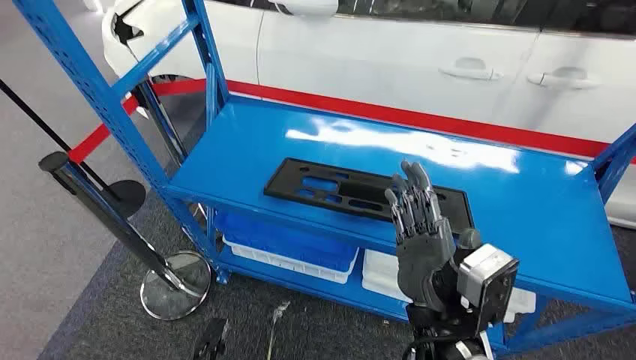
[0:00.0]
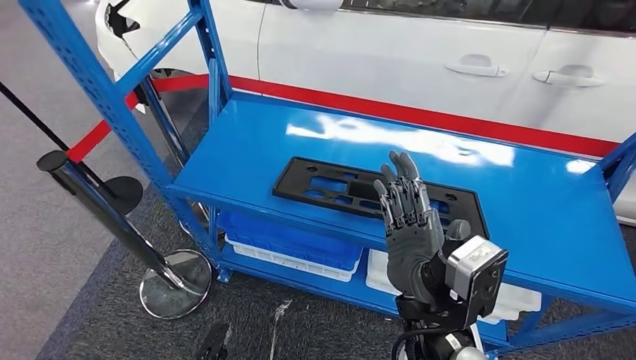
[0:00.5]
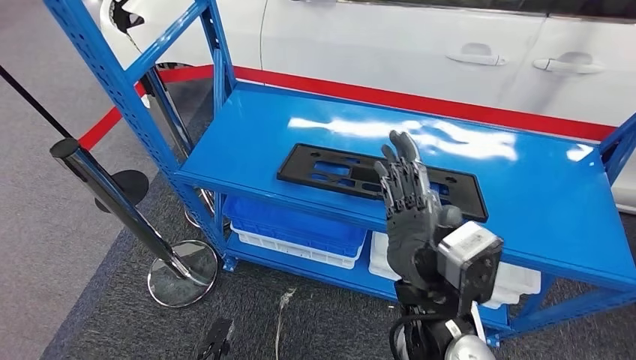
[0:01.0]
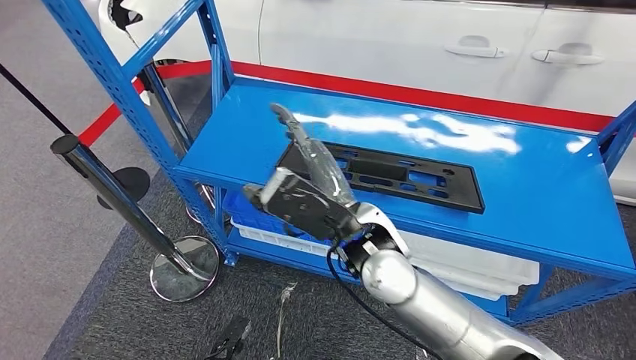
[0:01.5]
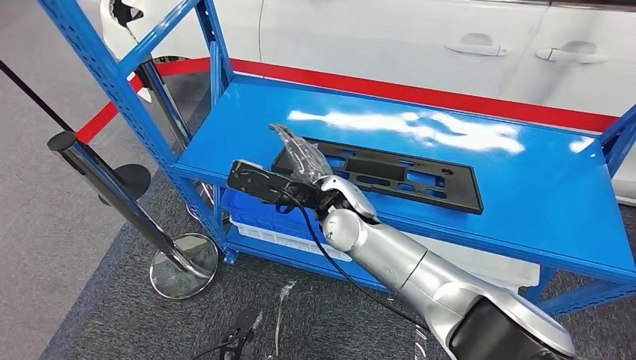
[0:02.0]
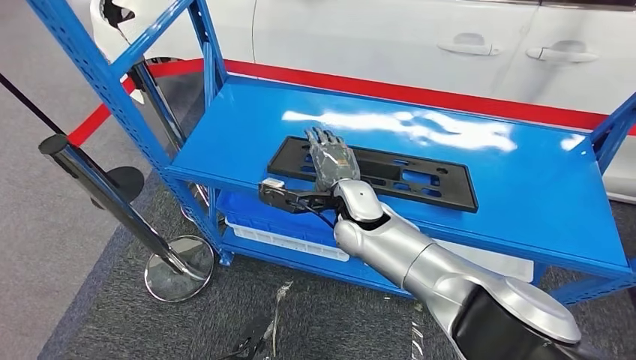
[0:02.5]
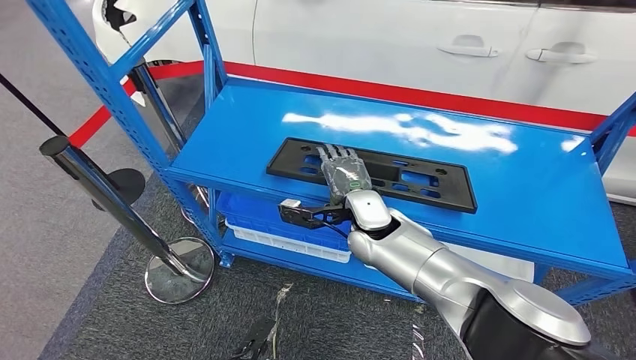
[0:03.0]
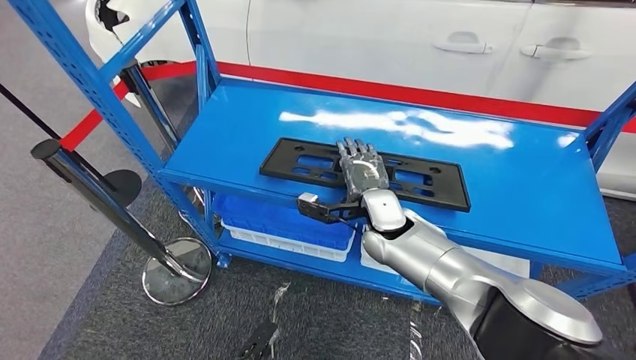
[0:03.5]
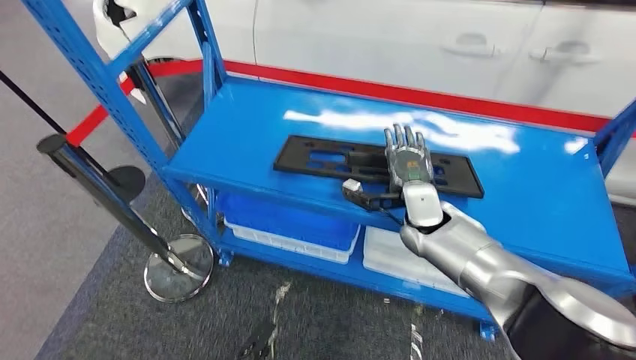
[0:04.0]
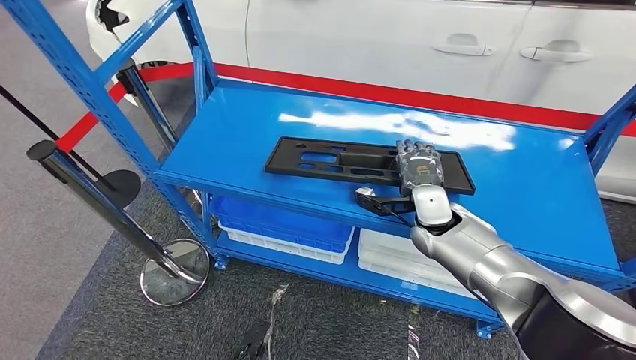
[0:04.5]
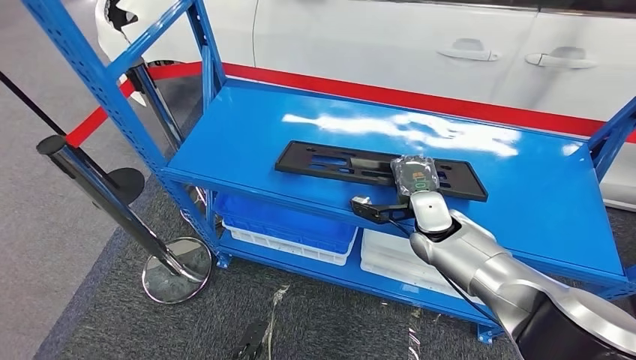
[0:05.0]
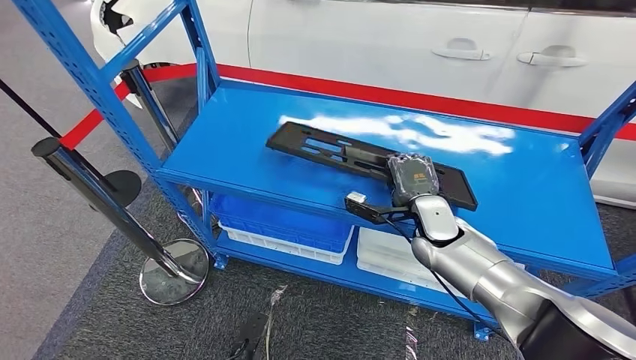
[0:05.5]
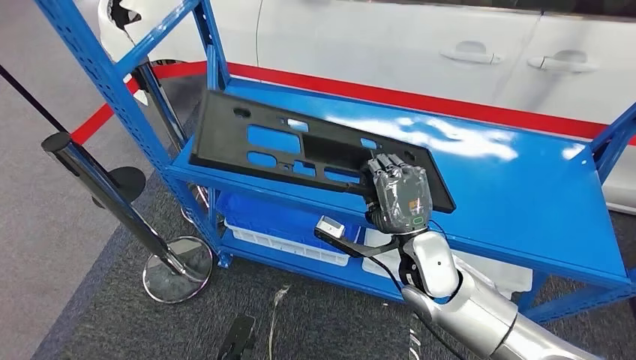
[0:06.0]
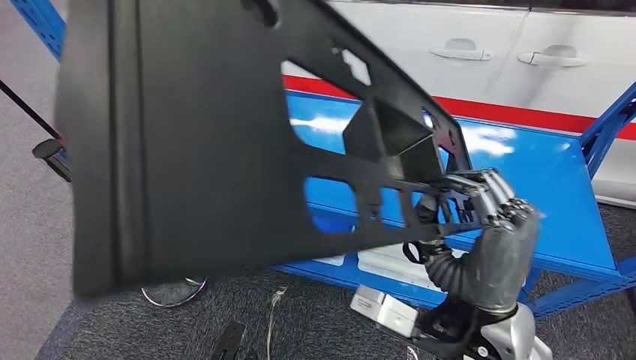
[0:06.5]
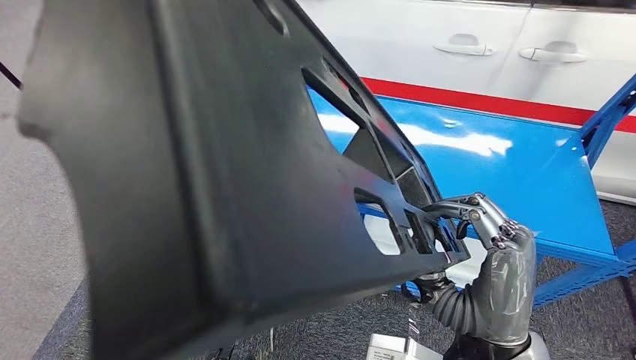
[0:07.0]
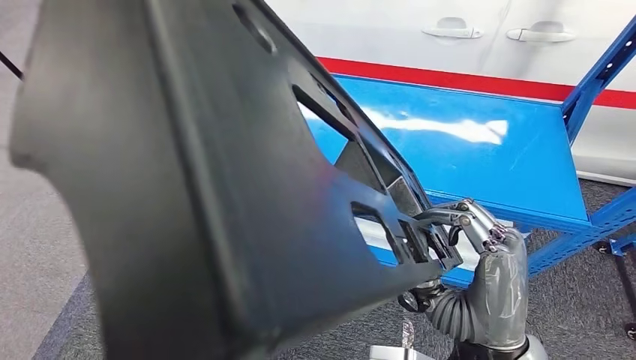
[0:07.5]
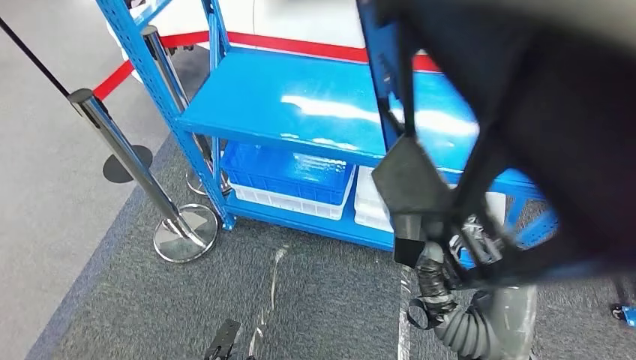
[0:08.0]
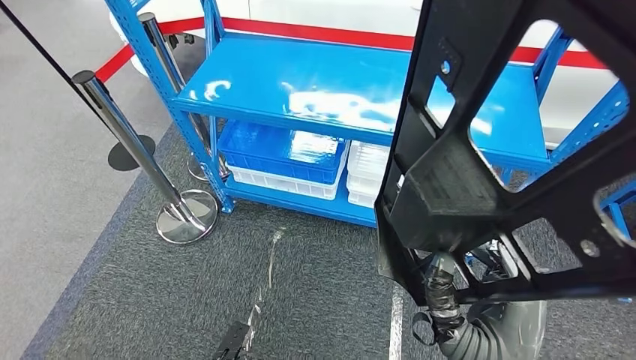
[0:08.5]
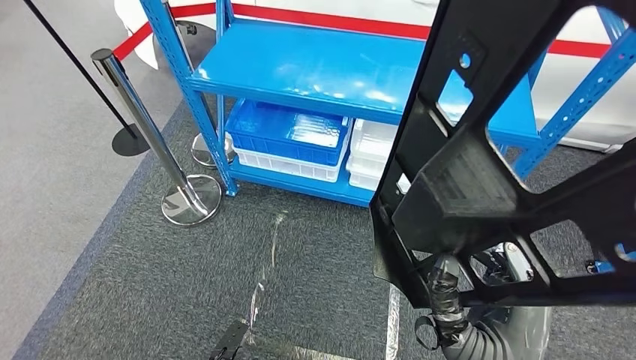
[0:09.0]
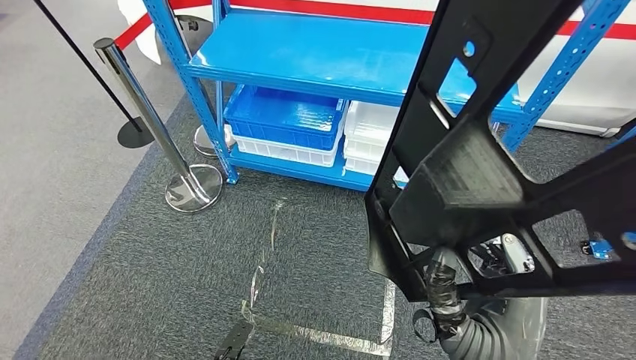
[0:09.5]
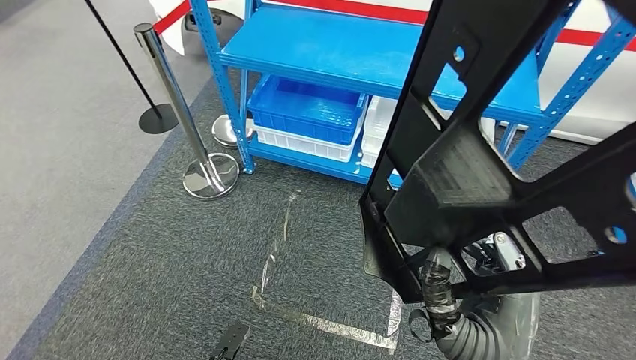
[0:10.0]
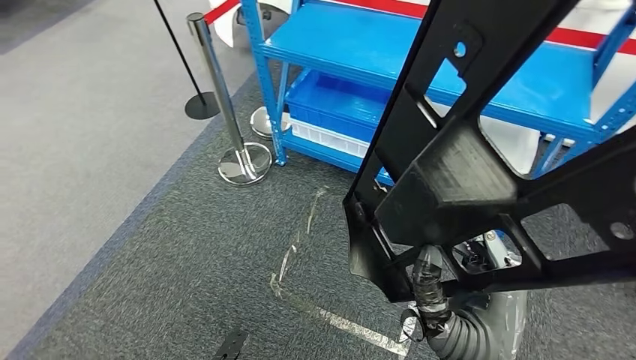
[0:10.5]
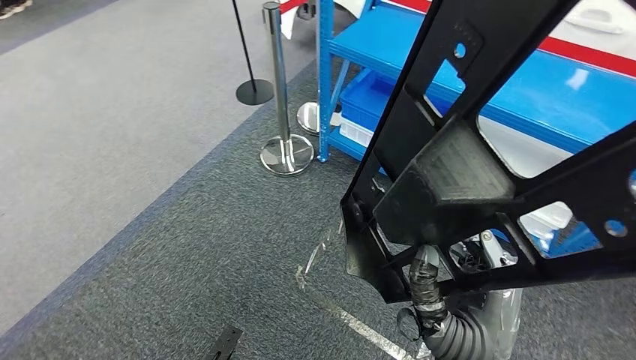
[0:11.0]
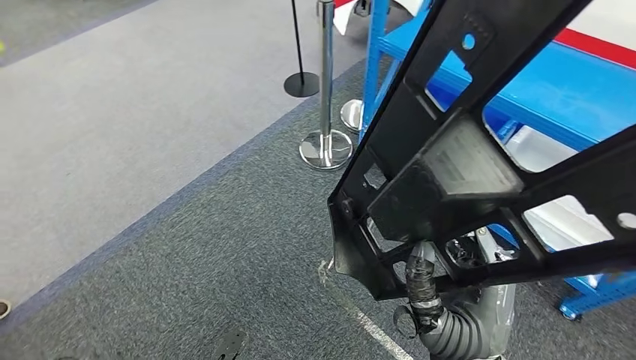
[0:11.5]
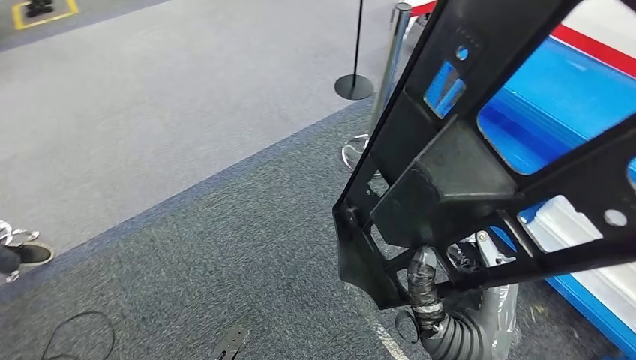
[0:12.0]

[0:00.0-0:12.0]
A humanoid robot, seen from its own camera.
Step, 0:00.0 to 0:06.0: Pick up the large material from the shelf.

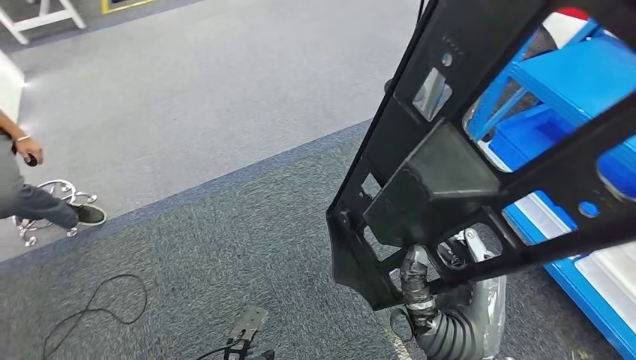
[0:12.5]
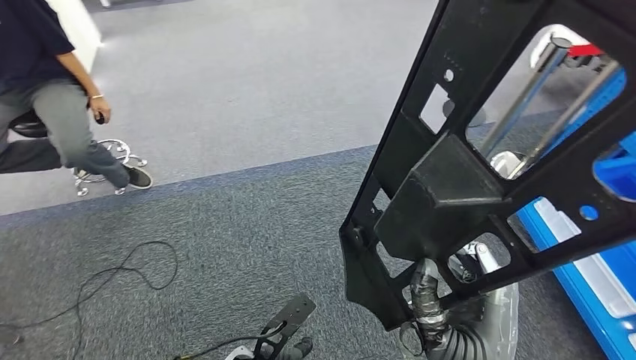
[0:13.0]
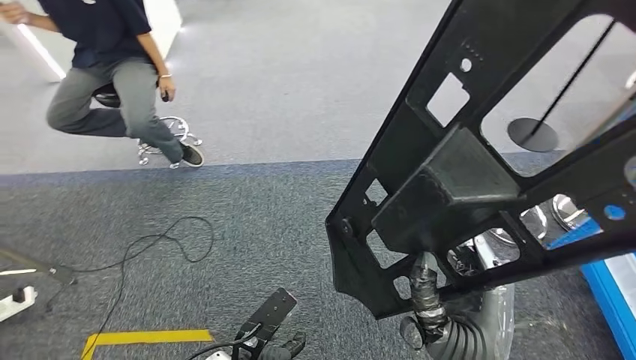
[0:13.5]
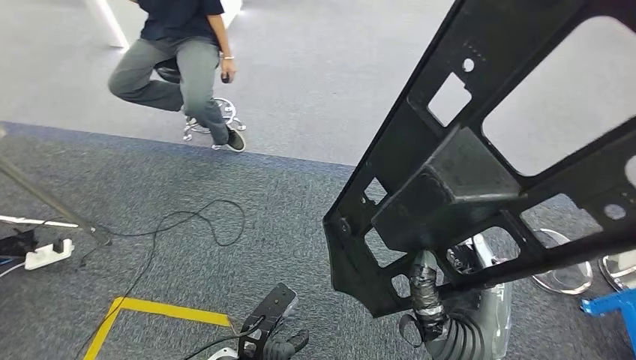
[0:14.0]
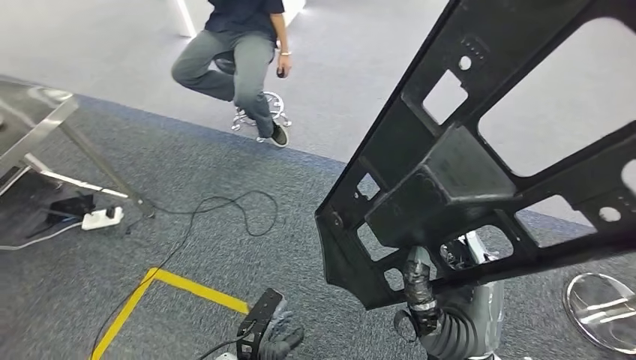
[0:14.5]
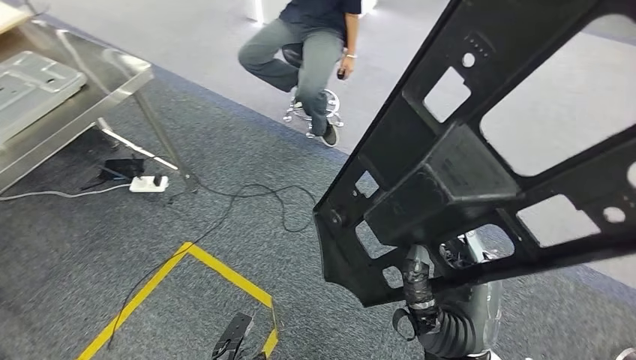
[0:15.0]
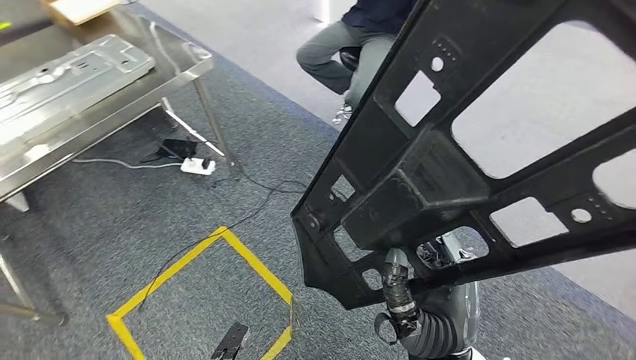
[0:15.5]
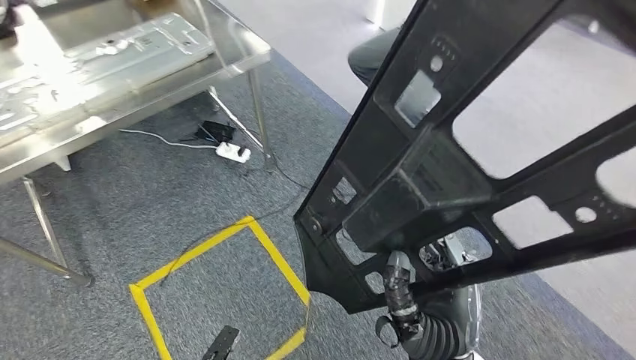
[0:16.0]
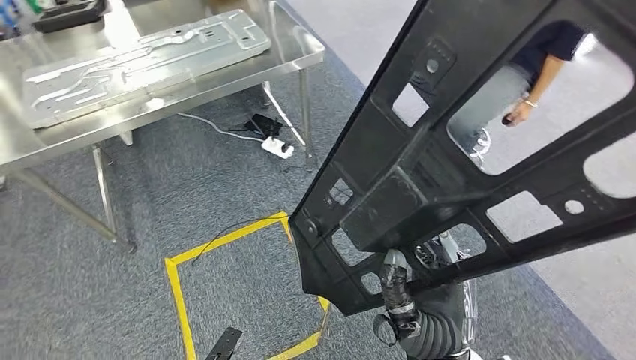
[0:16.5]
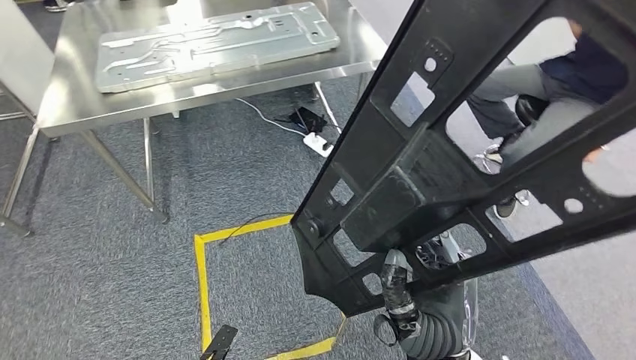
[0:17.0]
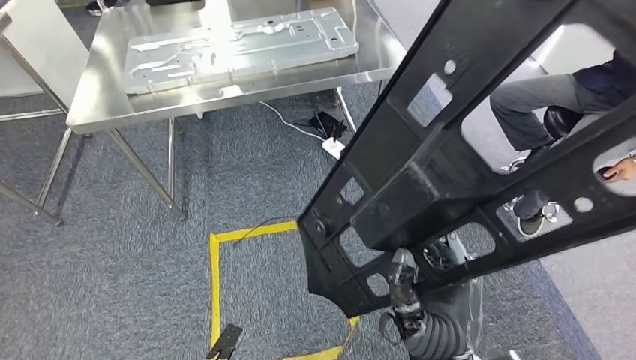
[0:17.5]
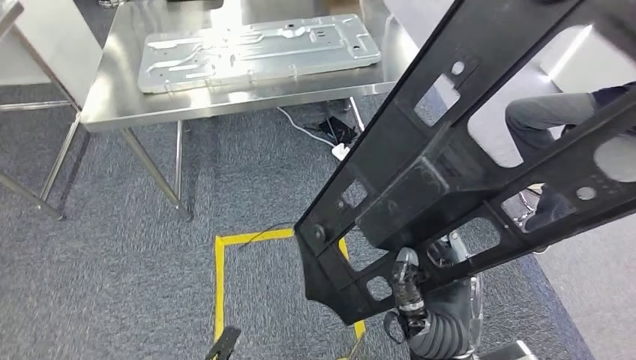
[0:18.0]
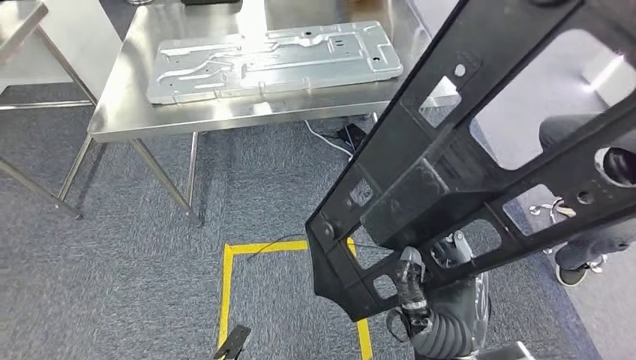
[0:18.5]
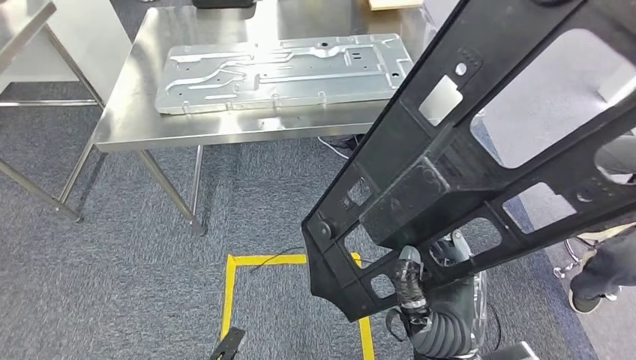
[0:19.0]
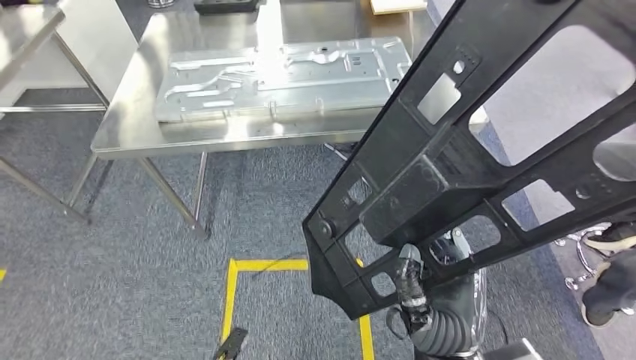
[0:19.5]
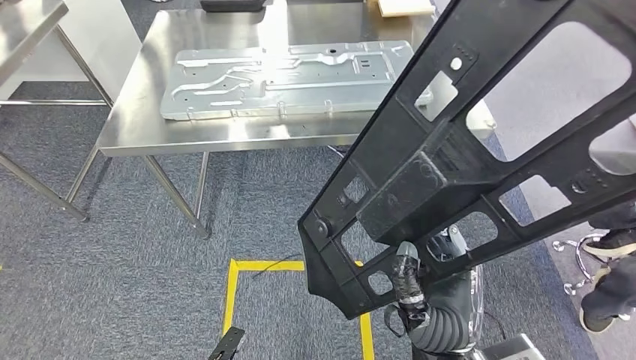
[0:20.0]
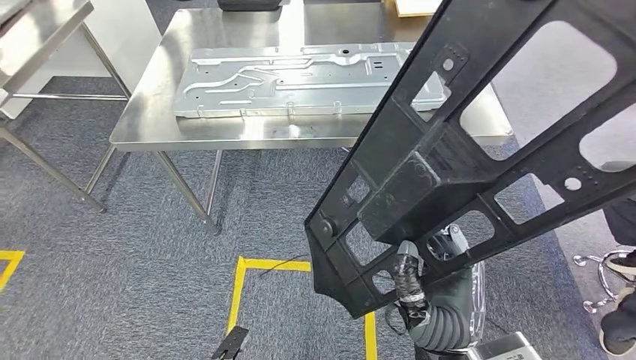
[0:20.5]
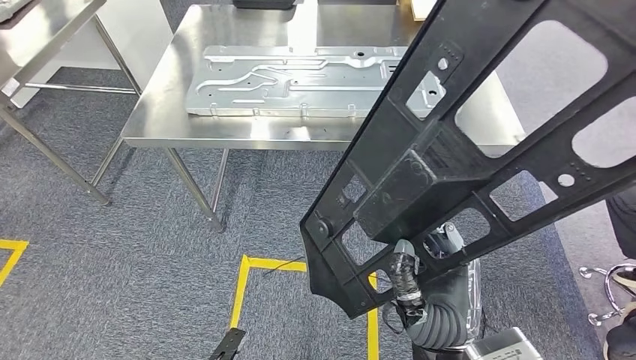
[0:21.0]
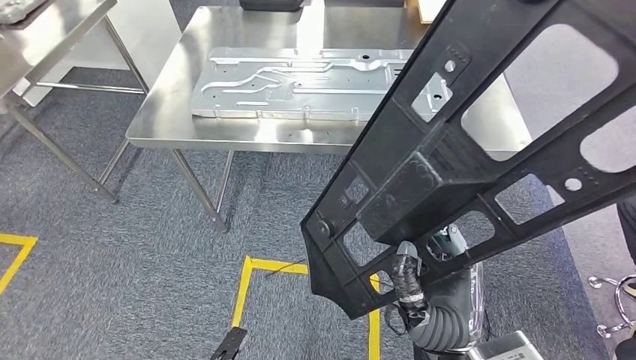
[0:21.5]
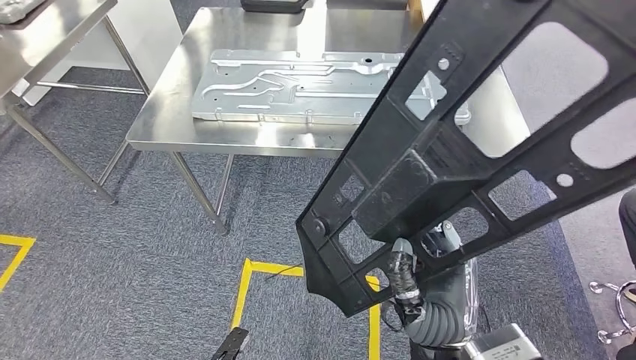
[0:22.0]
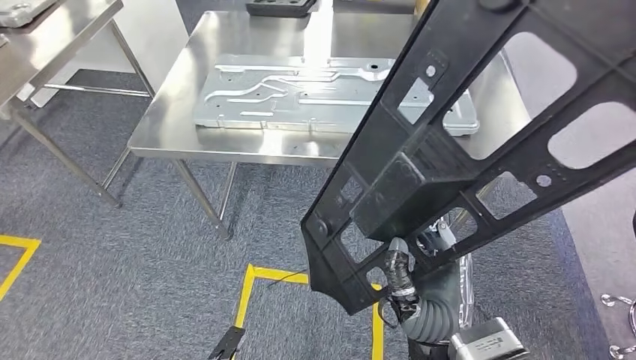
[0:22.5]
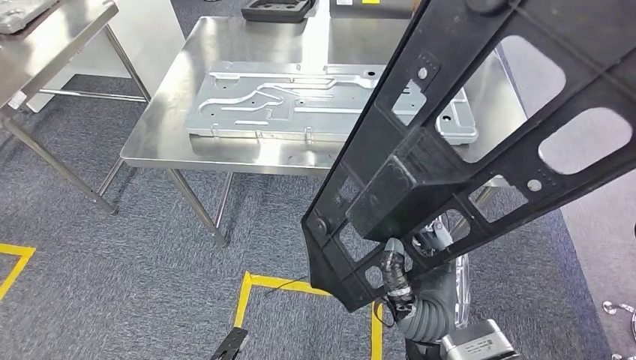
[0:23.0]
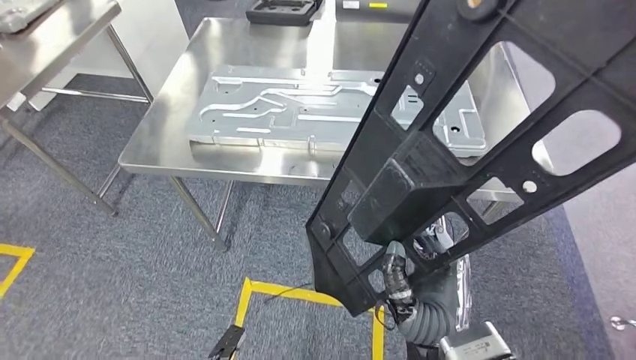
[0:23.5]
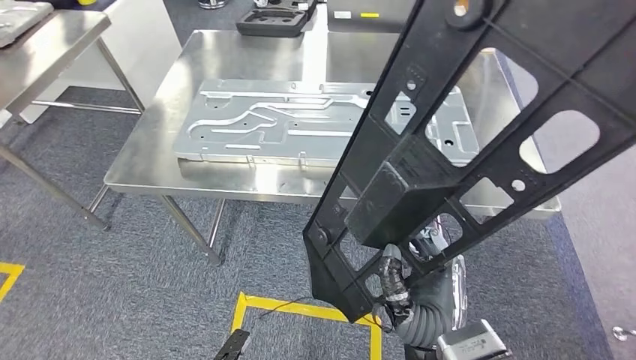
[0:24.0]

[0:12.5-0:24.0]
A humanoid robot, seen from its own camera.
Step, 0:12.5 to 0:21.0: Move the large material to the workbench.
